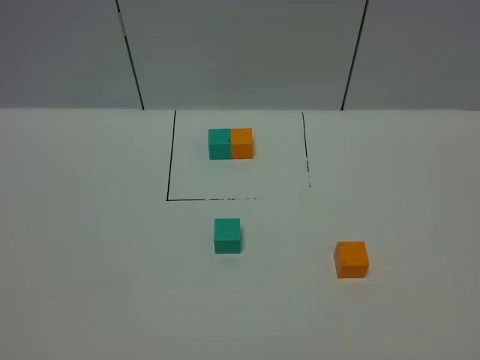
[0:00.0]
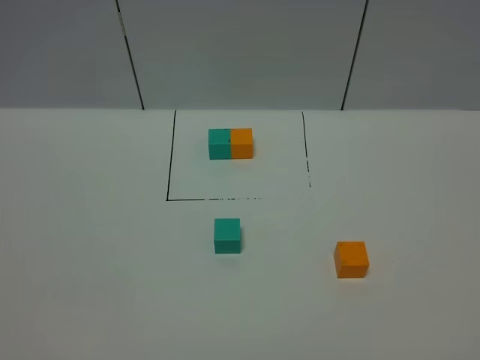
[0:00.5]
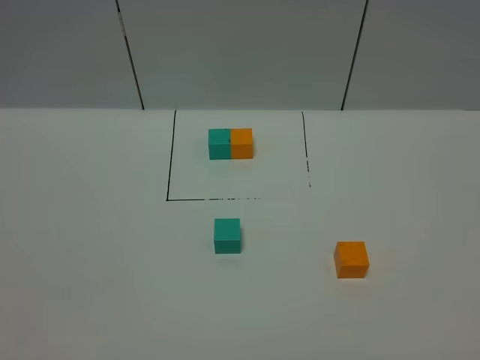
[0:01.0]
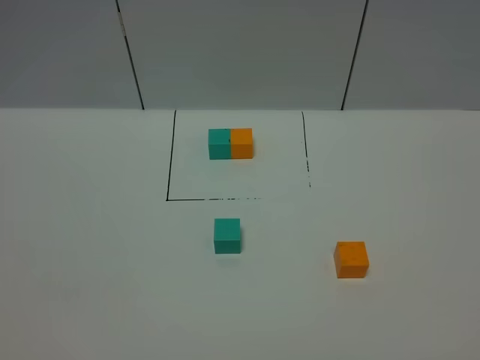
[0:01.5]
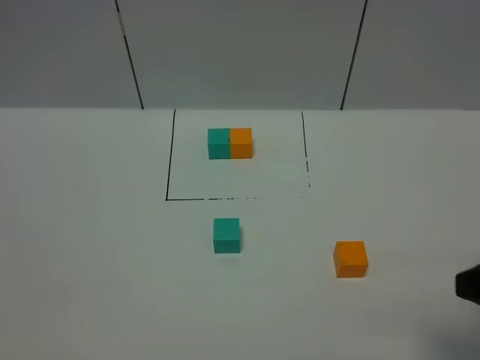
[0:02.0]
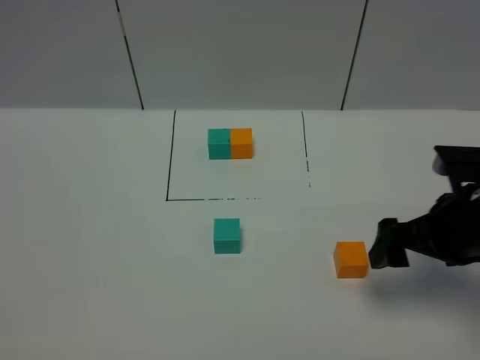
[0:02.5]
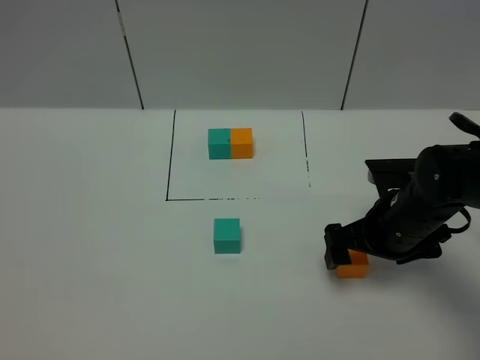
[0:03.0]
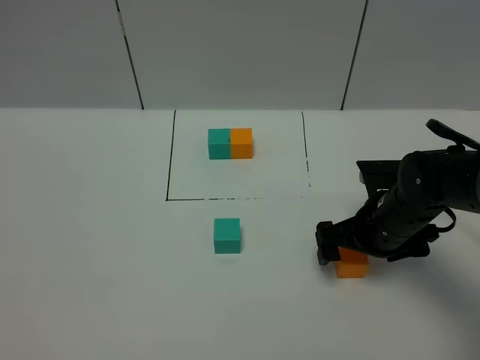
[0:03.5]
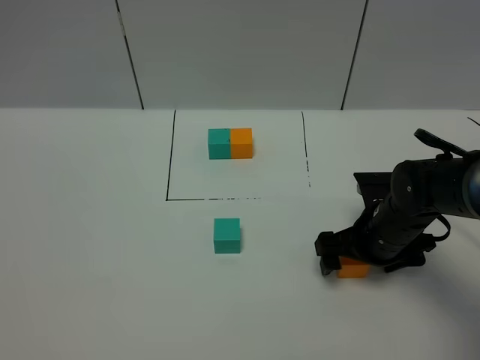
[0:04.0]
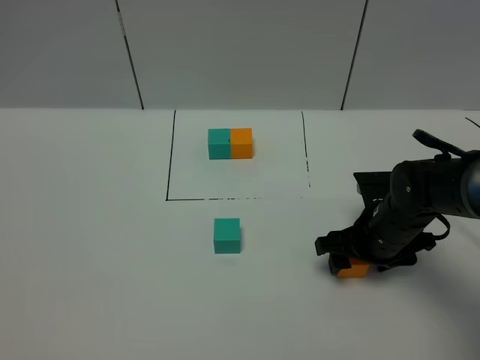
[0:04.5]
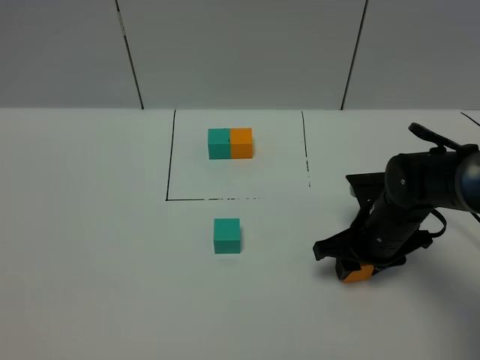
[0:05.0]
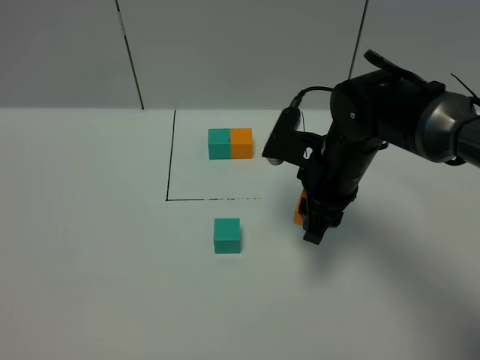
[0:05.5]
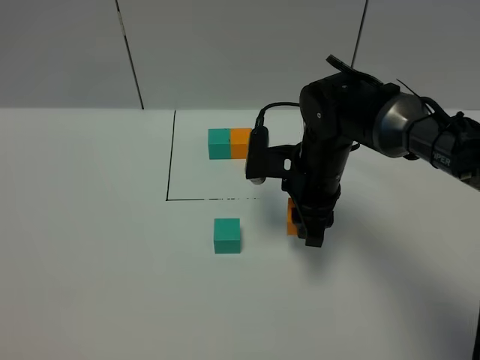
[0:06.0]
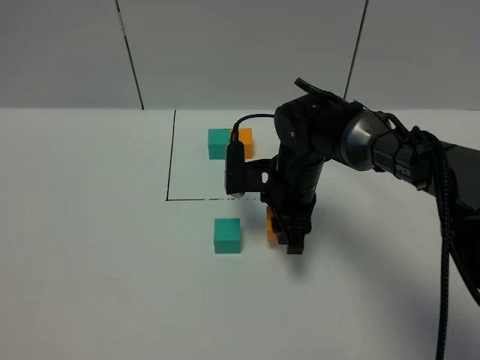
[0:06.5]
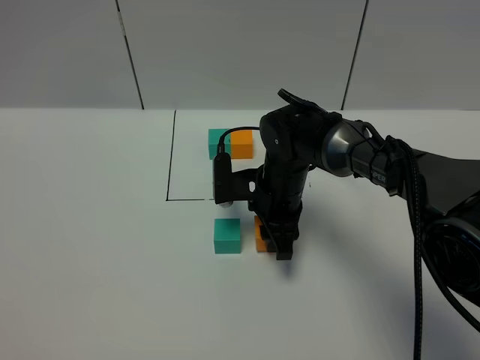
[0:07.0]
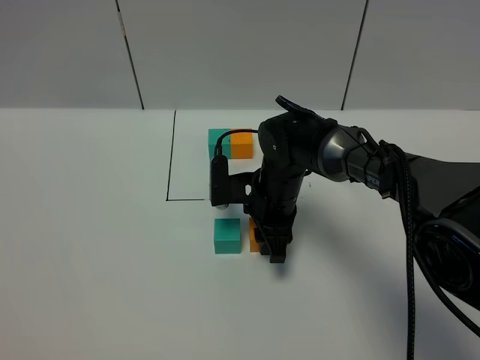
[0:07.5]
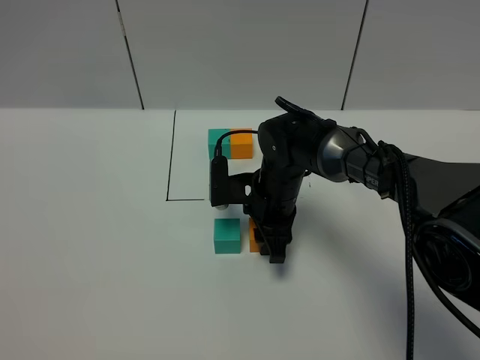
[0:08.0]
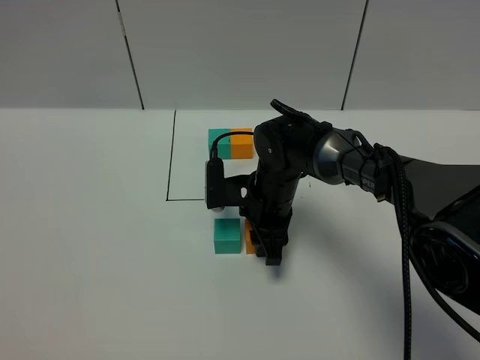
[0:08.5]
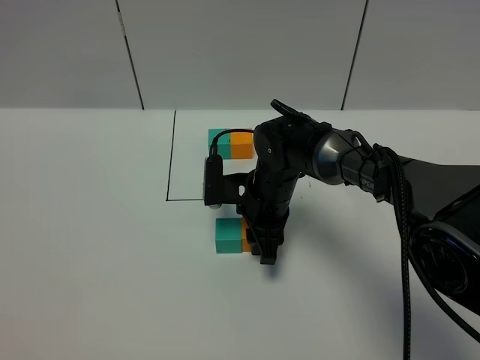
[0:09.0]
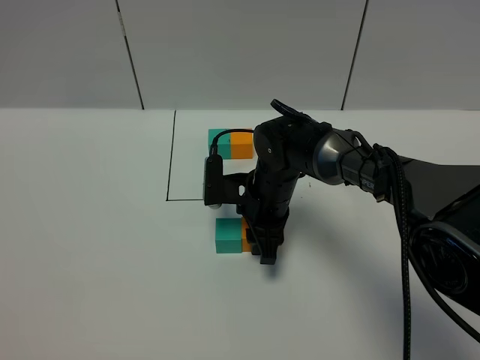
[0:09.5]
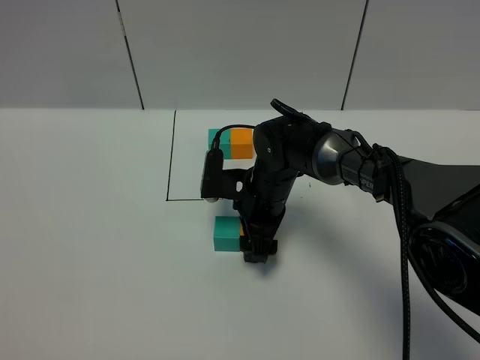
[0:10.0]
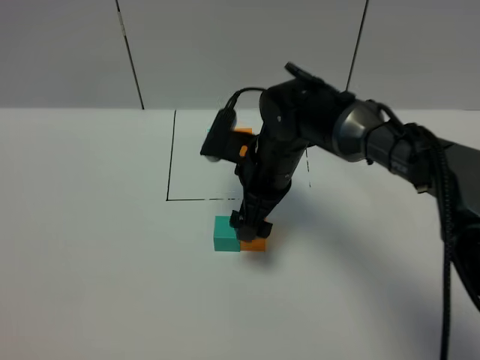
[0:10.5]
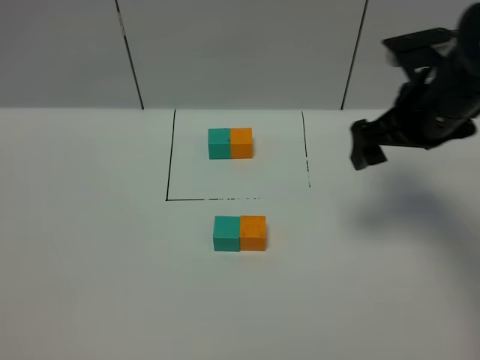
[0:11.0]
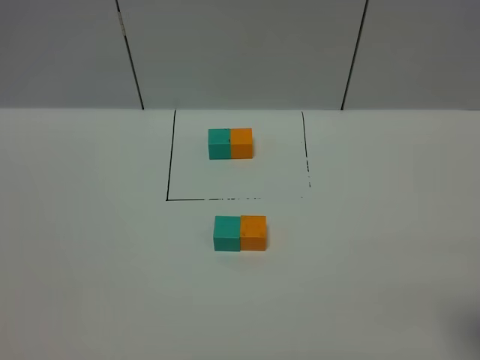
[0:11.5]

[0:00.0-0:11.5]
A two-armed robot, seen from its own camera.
Task of the whole recording: According to the building block template in front, assemble the scattered blocks together.
Step, 0:00.0 to 0:10.5: Put the orange cube on the right of the green cube.
0:00.0 to 0:02.0: The right gripper goes some 15 cm forward.
0:02.0 to 0:04.0: The right gripper is displaced downward, forward and to the left by approximately 30 cm.
0:04.0 to 0:06.0: The right gripper heads to the left, upward and forward, covering approximately 15 cm, and closes up.
0:06.0 to 0:07.5: The right gripper shifts roughly 5 cm downward.
0:07.5 to 0:09.5: Both grippers stay about where they are.
0:09.5 to 0:11.5: The right gripper shifts approximately 40 cm to the right, backward and upward, and opens its fingers.

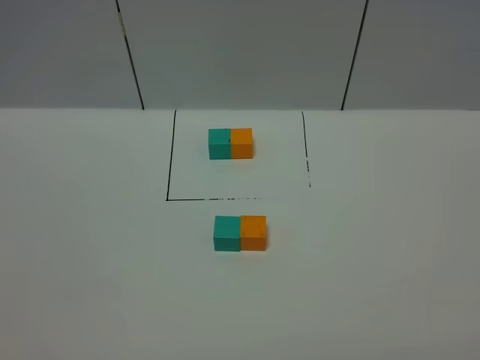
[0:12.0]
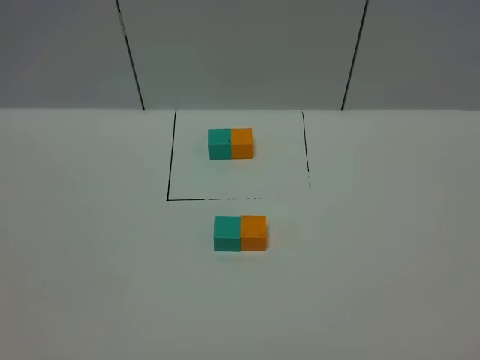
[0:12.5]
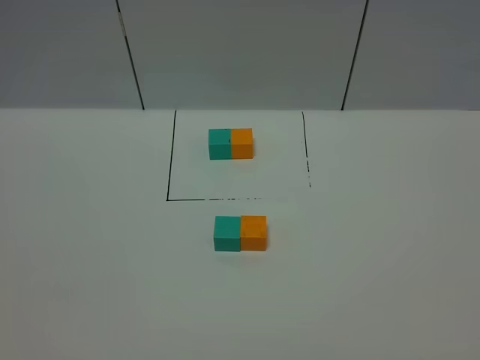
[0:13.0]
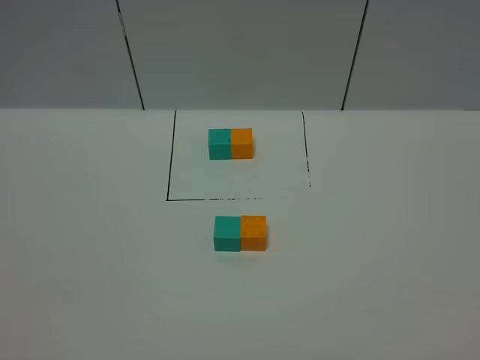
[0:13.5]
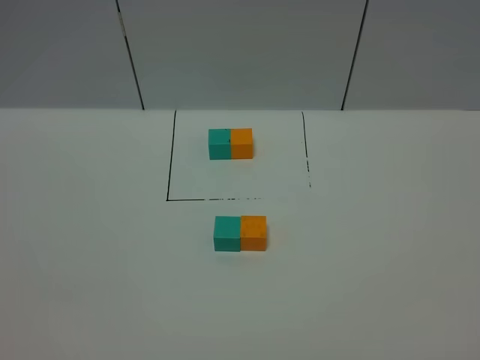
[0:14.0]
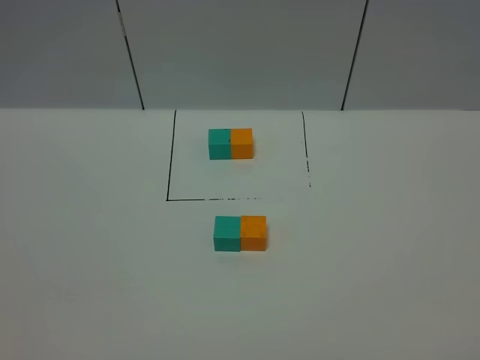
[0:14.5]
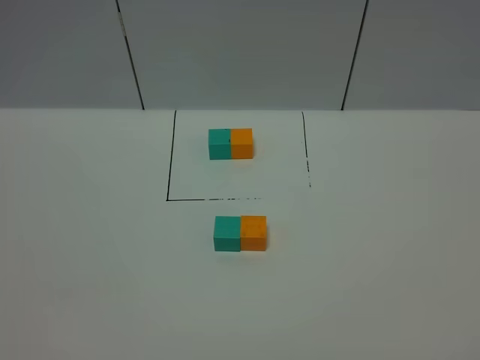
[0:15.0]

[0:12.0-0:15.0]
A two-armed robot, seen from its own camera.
Task of the whole recording: According to the building block template in front, assemble the scattered blocks together.
0:13.5 to 0:15.0: Neither gripper changes place.

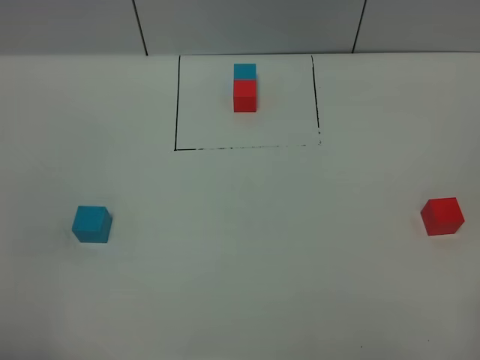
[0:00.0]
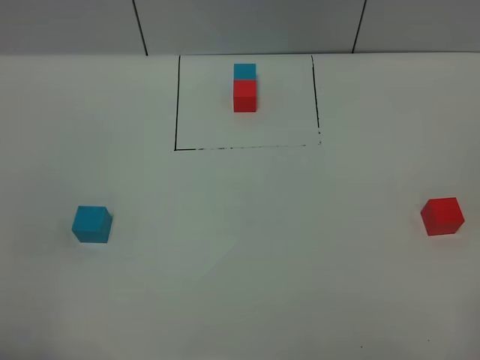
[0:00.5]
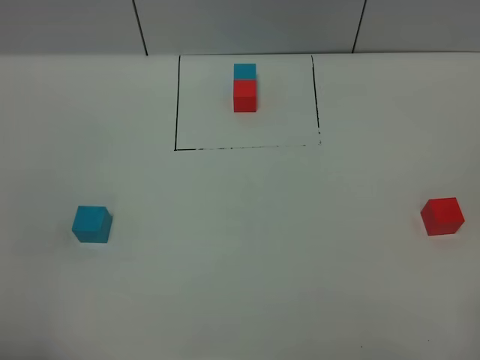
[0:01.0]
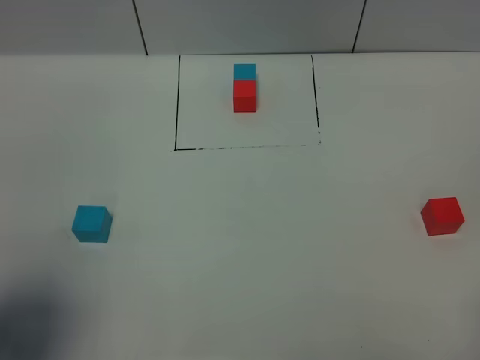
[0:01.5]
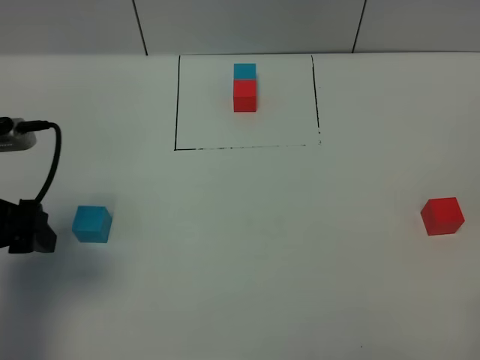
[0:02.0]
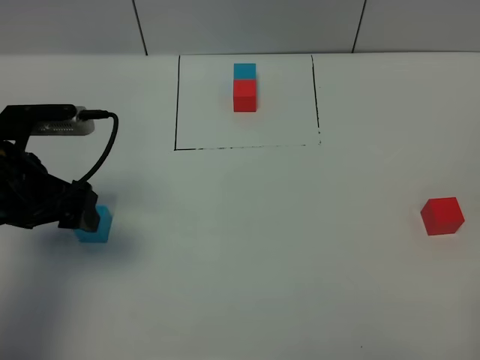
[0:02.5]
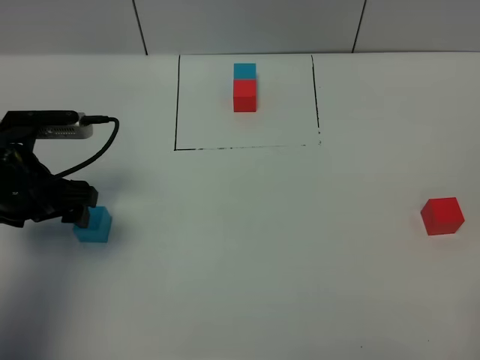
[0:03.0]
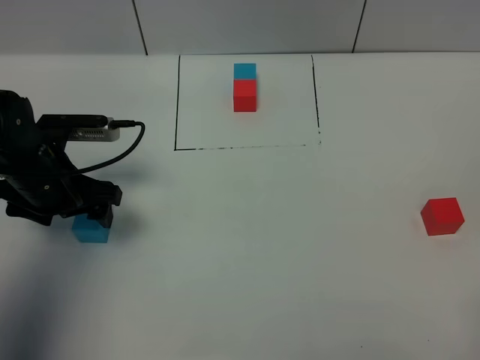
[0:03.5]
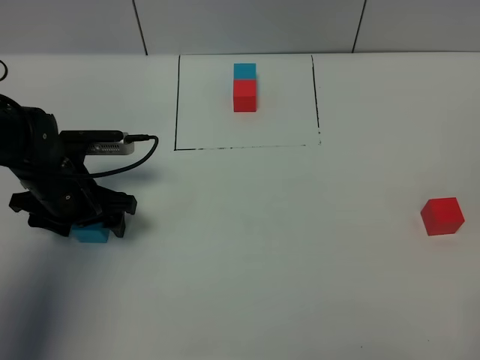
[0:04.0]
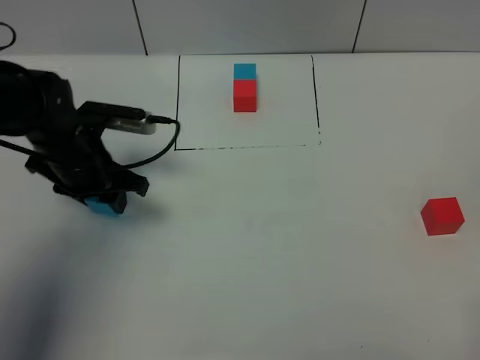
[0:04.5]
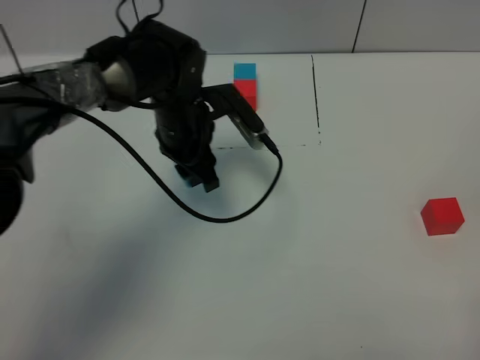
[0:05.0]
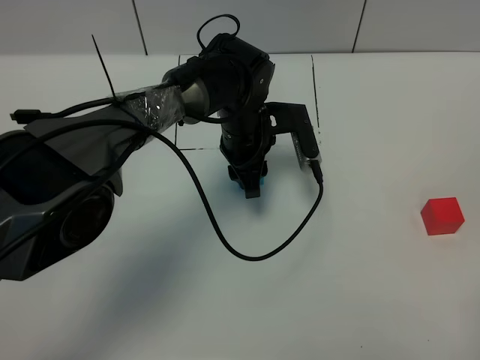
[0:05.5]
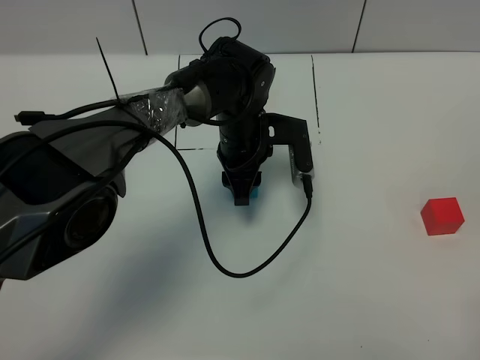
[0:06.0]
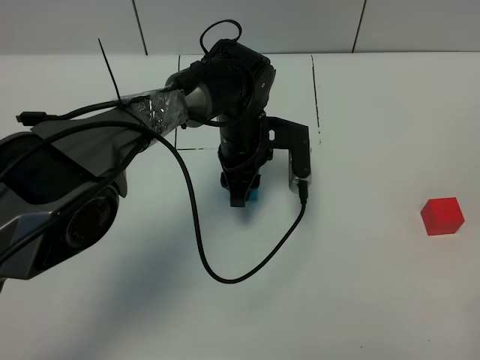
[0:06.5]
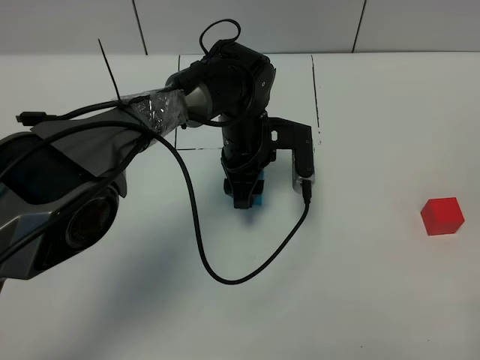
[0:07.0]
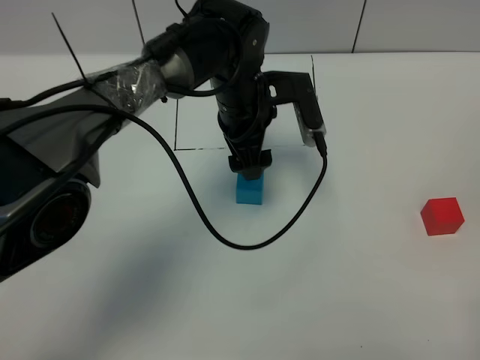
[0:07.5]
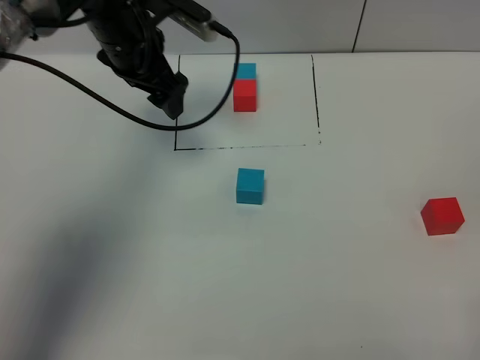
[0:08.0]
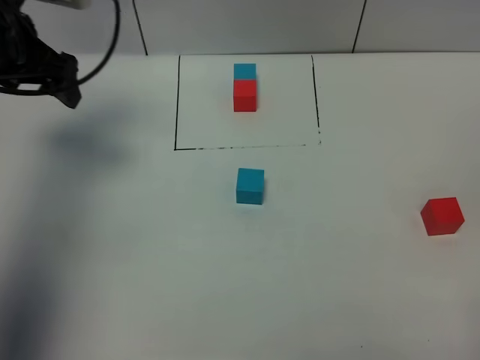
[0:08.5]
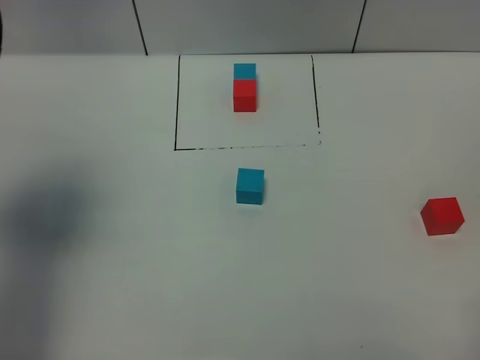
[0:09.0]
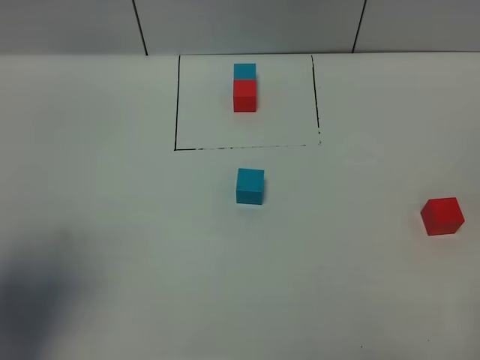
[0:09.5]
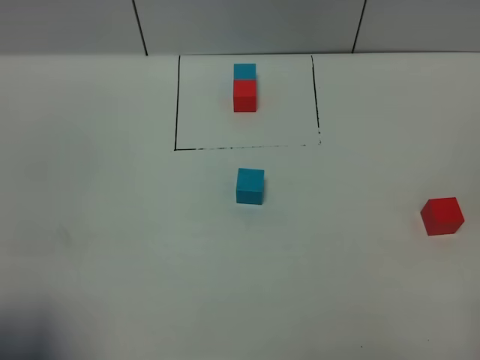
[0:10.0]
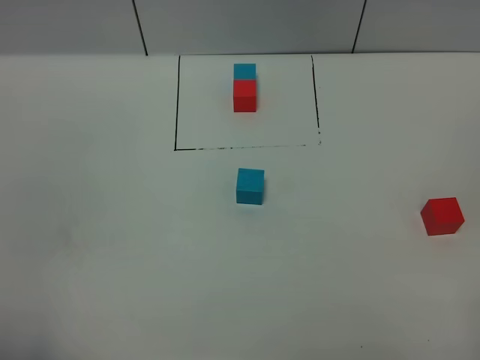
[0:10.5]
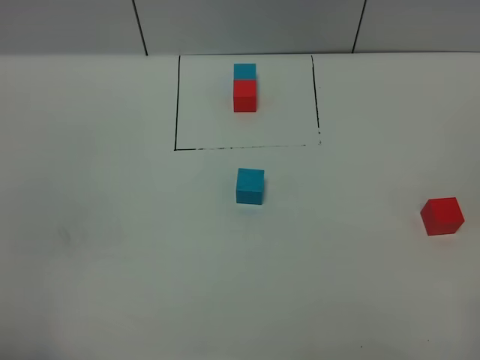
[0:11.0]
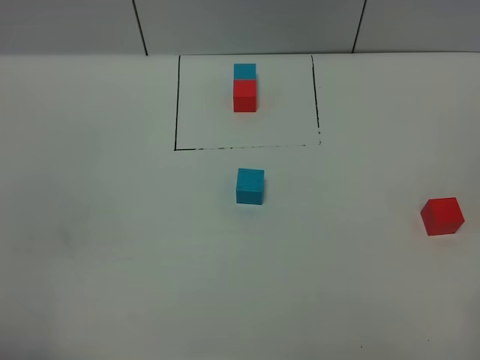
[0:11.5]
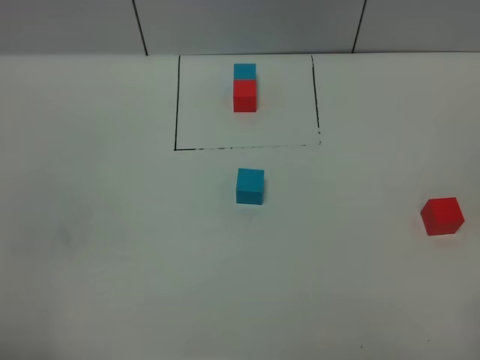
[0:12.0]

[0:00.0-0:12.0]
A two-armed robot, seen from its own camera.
Task of the whole recording: According to the building block template in front, assemble the scattered blocks together.
Step, 0:02.0 to 0:07.0: Put the blue cube in the center of the table.
0:00.0 to 0:02.0: The left gripper goes some 20 cm forward.
0:02.0 to 0:04.0: The left gripper shifts about 15 cm downward and forward.
0:04.0 to 0:06.0: The left gripper travels to the right by some 25 cm, and closes its fingers.
0:06.0 to 0:08.0: The left gripper shifts about 20 cm to the left and upward, and opens its fingers.
0:08.0 to 0:10.0: The left gripper shifts about 40 cm backward.
0:10.0 to 0:12.0: The left gripper heads backward, covering roughly 5 cm.
